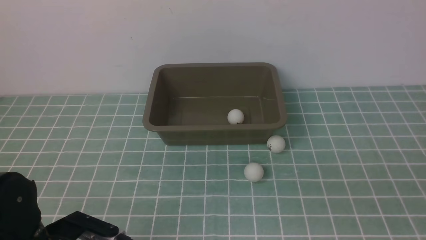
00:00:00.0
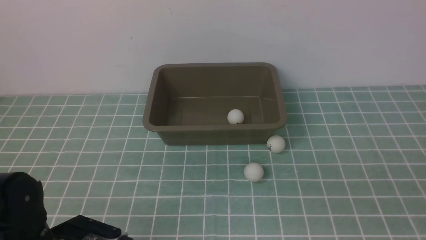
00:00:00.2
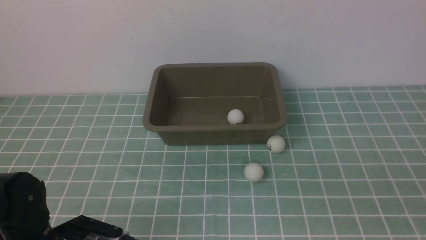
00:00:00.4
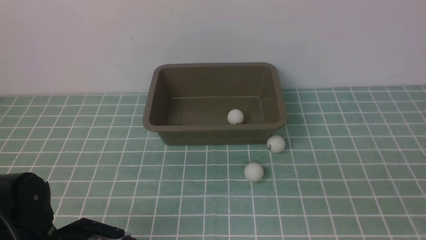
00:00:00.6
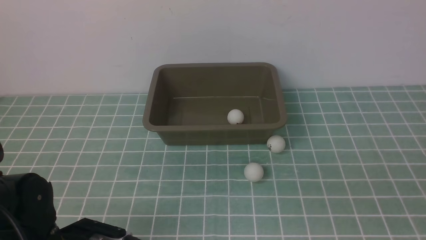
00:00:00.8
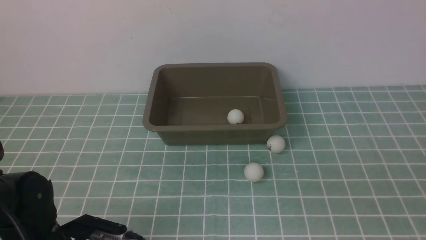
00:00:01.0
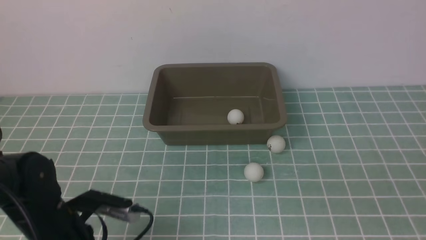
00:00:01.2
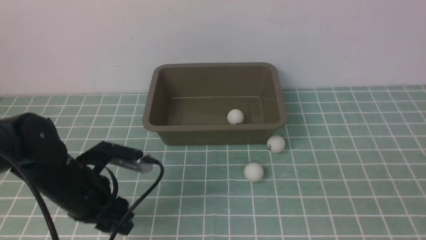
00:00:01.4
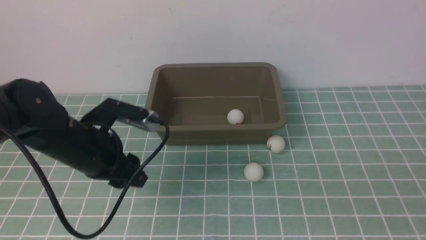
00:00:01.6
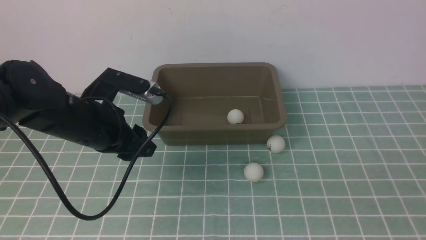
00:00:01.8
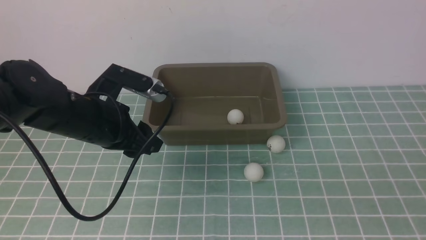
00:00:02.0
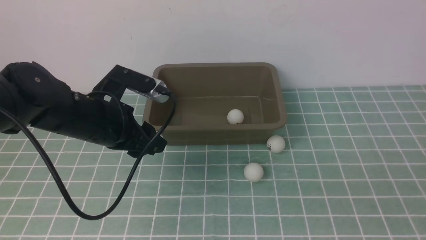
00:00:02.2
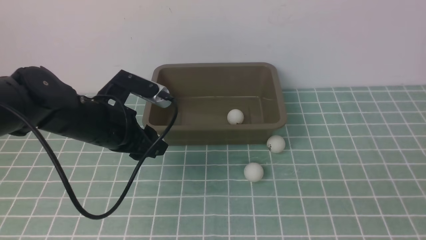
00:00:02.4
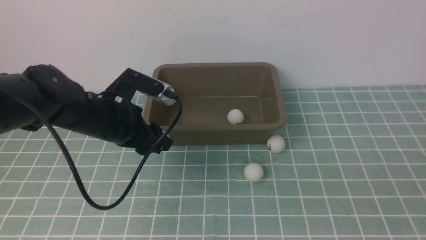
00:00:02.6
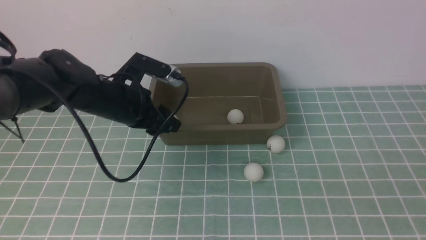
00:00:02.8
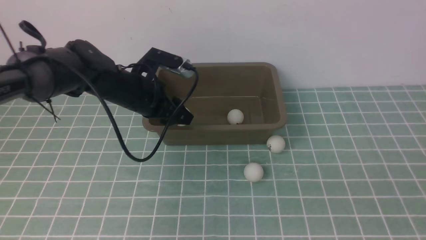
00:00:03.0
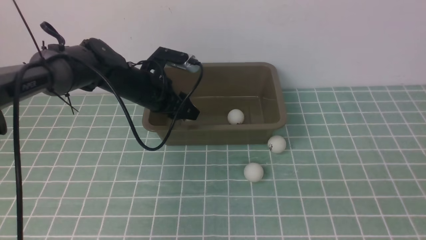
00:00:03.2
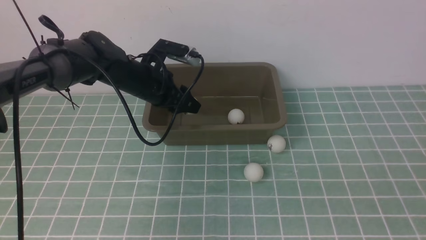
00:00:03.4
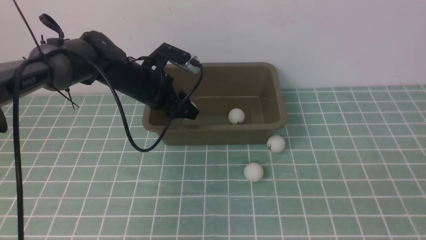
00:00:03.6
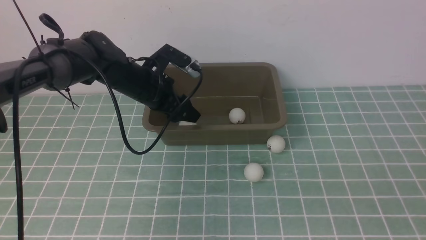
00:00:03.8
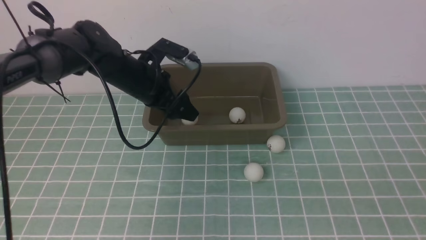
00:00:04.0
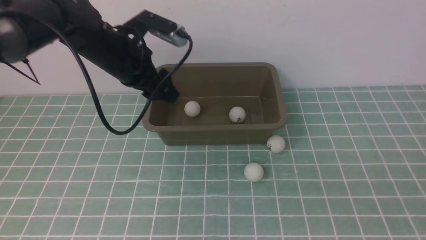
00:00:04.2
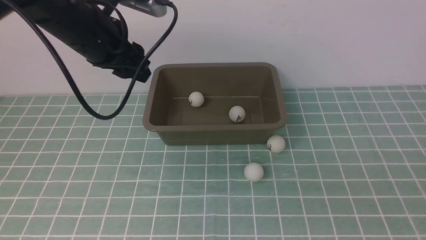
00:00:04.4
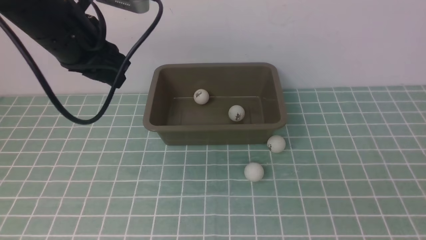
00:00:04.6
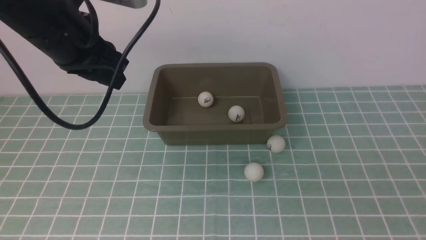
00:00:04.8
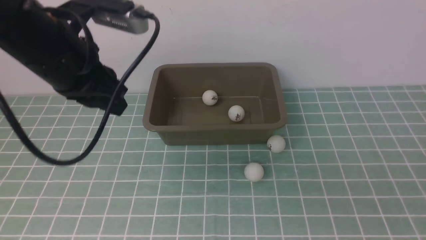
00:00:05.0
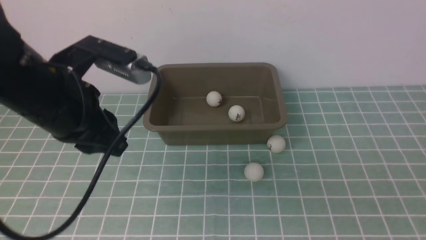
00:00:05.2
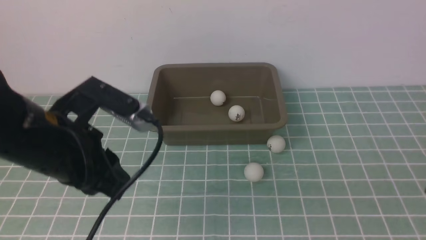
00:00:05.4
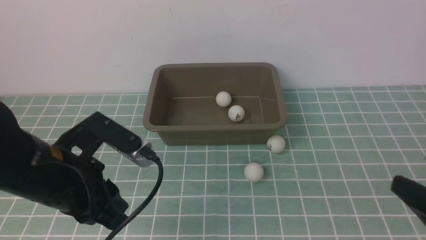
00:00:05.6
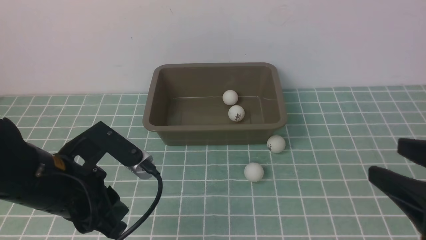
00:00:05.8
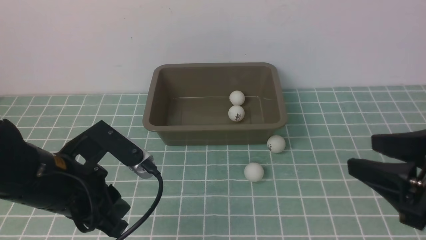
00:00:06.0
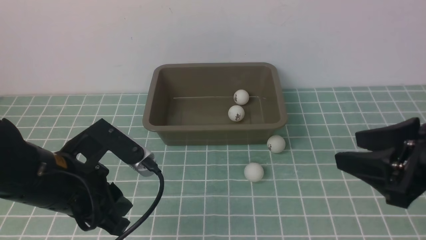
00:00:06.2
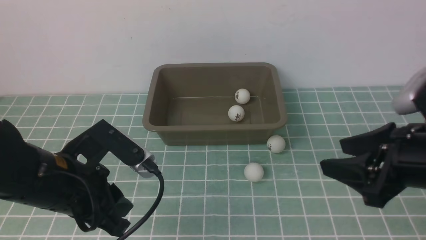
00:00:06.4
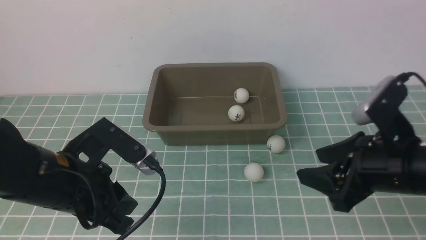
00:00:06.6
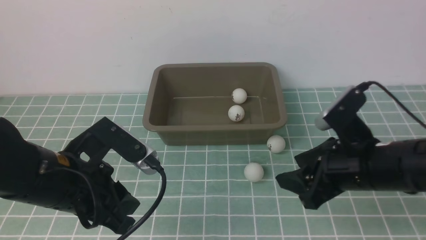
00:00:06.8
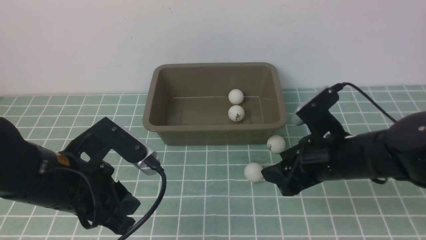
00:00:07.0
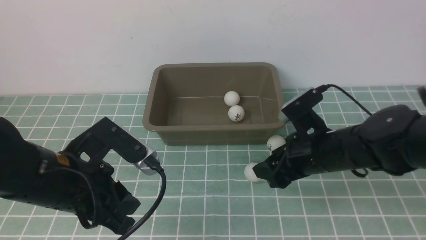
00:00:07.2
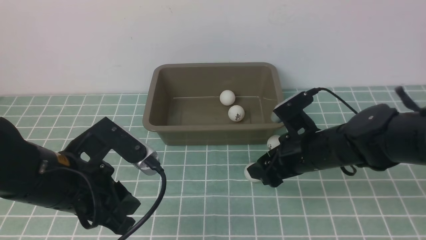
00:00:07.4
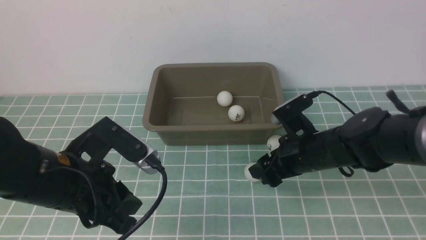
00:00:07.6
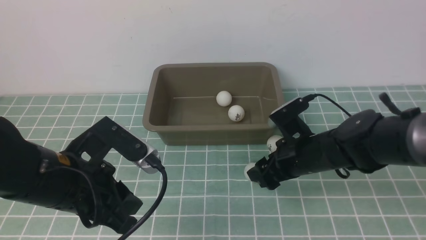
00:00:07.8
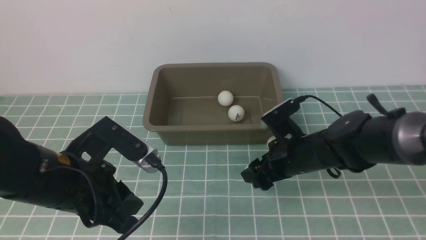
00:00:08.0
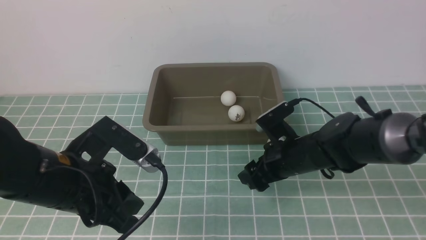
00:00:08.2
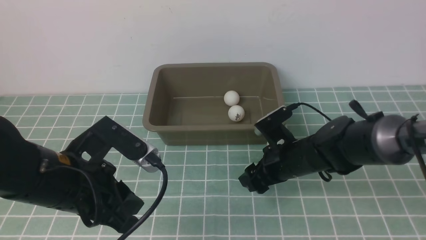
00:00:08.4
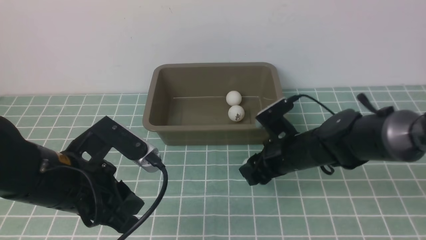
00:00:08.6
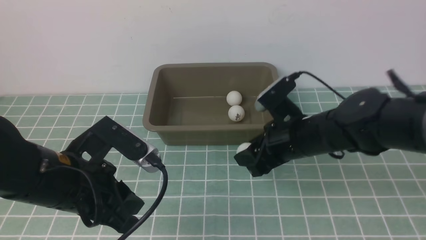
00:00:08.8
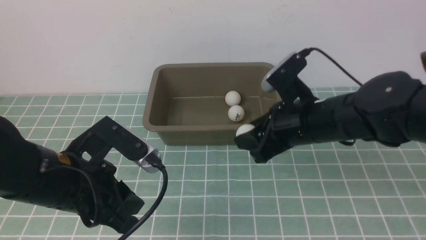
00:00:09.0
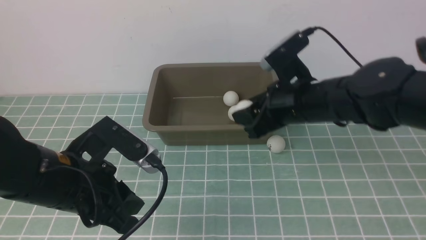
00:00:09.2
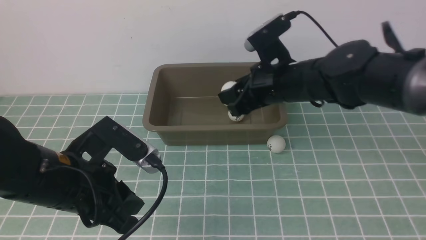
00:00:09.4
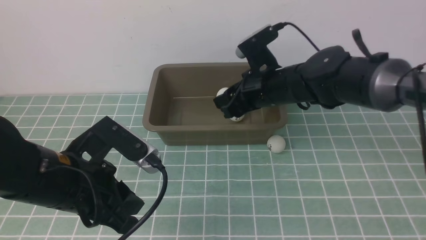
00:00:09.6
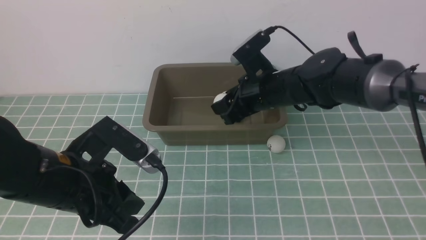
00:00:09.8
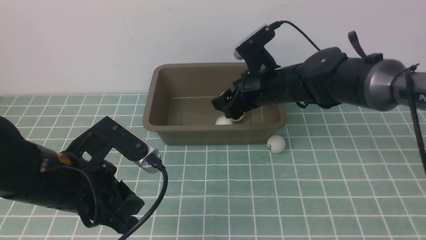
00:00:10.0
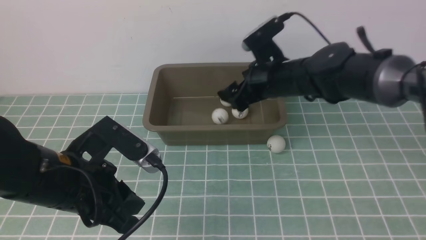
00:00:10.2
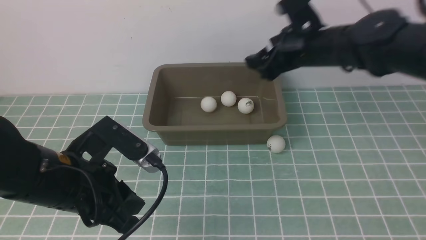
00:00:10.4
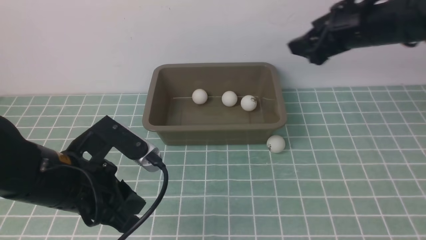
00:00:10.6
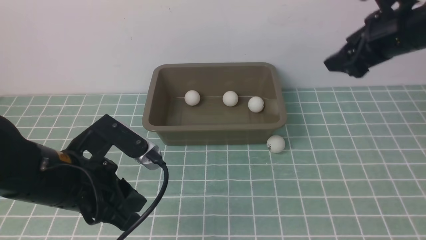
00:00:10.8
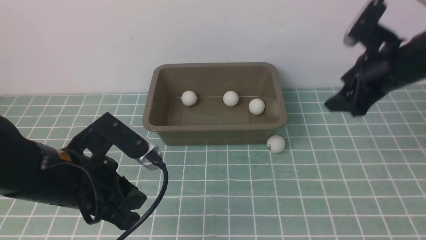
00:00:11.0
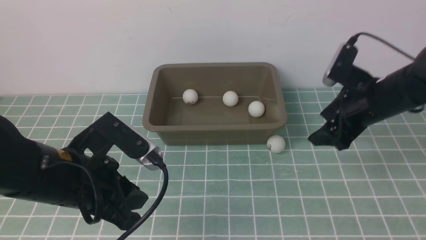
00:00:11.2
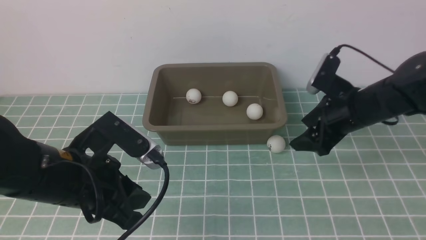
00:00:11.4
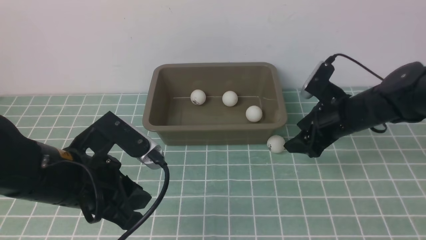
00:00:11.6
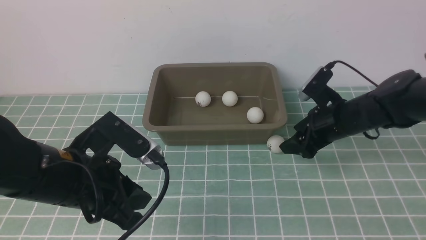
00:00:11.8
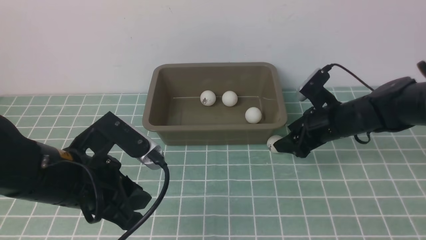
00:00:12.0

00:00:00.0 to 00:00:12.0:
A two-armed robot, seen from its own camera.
Step, 00:00:01.6 to 00:00:03.8: use the left arm to put the table tennis ball into the box.
Step, 00:00:04.0 to 00:00:08.8: use the right arm to clamp the table tennis ball closest to it.
Step, 00:00:09.0 to 00:00:10.2: use the right arm to put the table tennis ball into the box.
00:00:00.0 to 00:00:01.6: The left gripper shifts roughly 15 cm forward and upward.
00:00:01.6 to 00:00:03.0: The left gripper shifts roughly 15 cm forward.
00:00:03.0 to 00:00:04.4: The left gripper travels upward and backward by roughly 20 cm, and closes its fingers.
00:00:04.4 to 00:00:06.0: The right gripper moves forward, roughly 20 cm, while the left gripper moves downward and backward, roughly 15 cm.
00:00:06.0 to 00:00:07.6: The right gripper goes about 20 cm downward, forward and to the left.
00:00:07.6 to 00:00:09.0: The right gripper heads upward and forward, covering roughly 10 cm, and closes, then reopens.
00:00:09.0 to 00:00:10.4: The right gripper shifts about 15 cm to the right.
00:00:10.4 to 00:00:12.0: The right gripper goes some 10 cm downward.

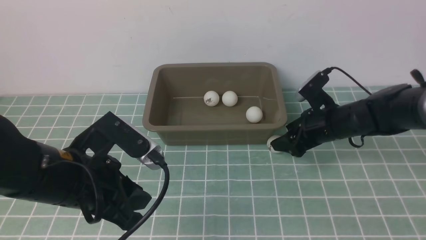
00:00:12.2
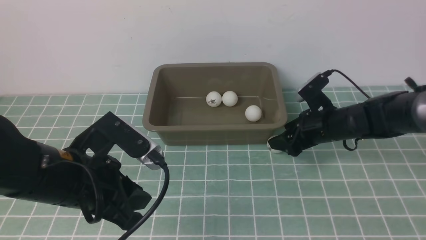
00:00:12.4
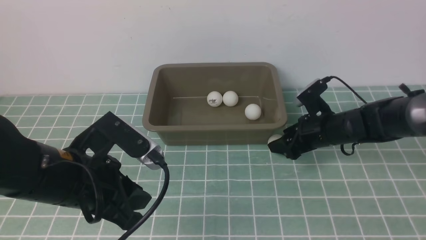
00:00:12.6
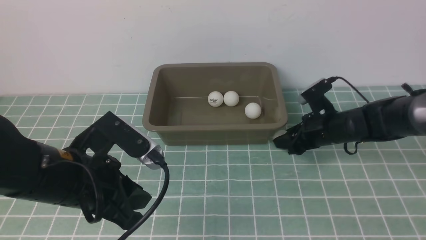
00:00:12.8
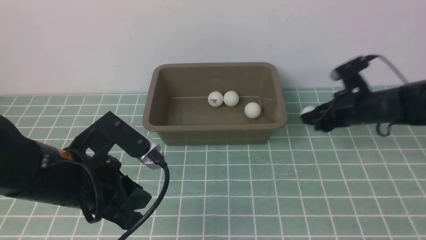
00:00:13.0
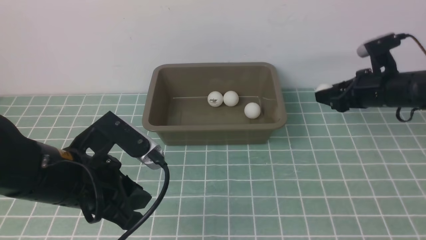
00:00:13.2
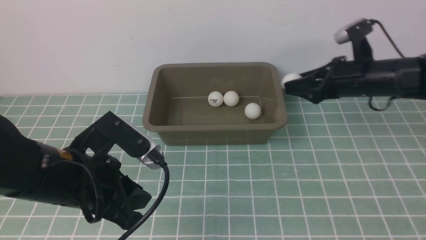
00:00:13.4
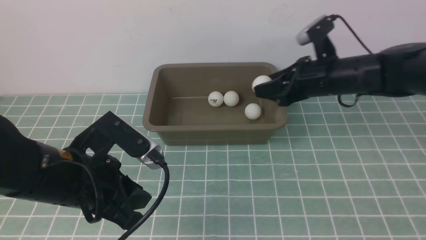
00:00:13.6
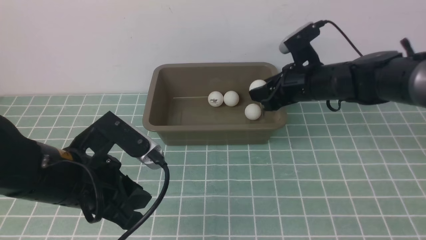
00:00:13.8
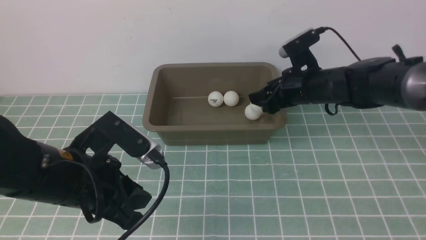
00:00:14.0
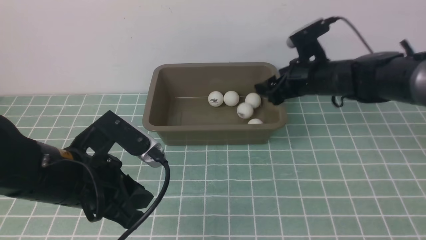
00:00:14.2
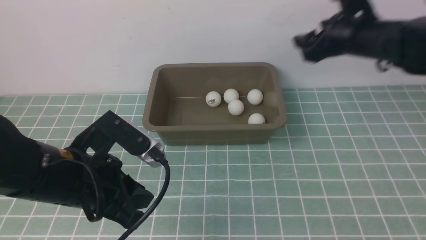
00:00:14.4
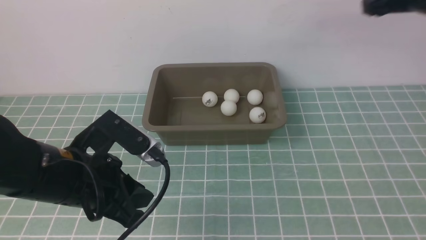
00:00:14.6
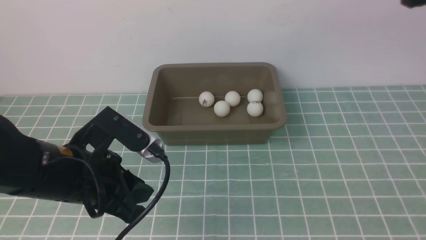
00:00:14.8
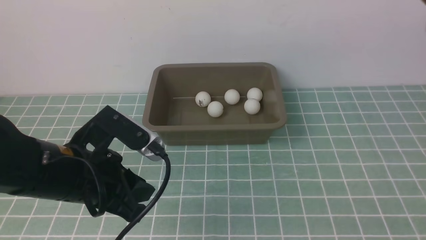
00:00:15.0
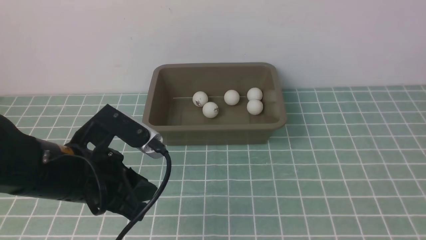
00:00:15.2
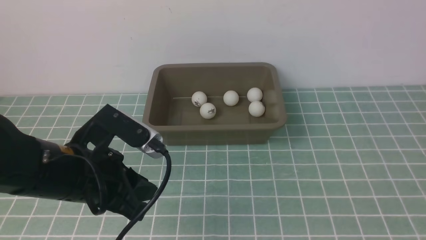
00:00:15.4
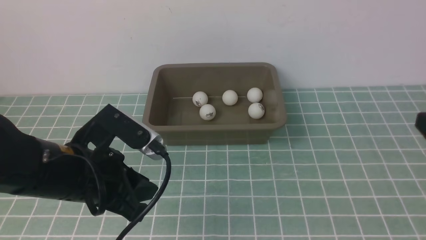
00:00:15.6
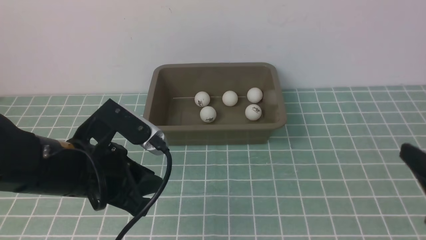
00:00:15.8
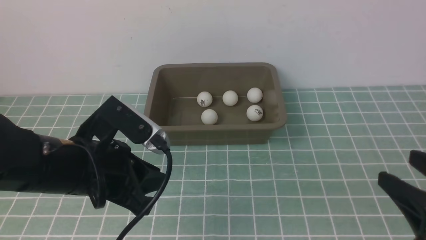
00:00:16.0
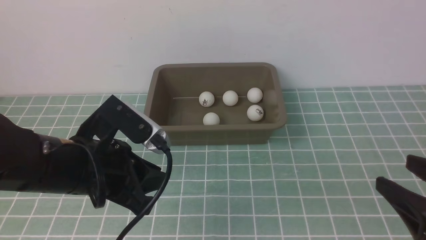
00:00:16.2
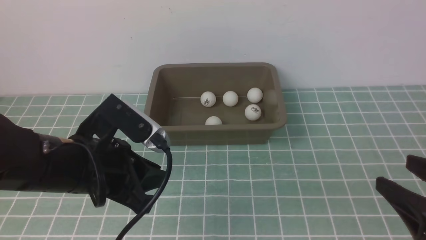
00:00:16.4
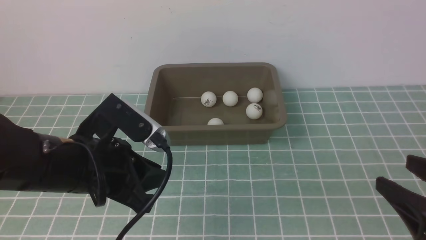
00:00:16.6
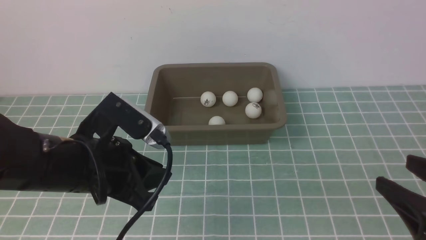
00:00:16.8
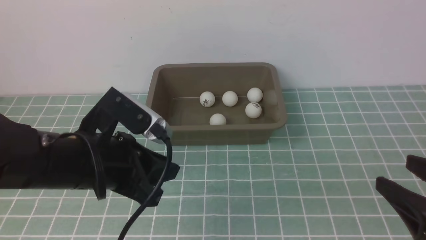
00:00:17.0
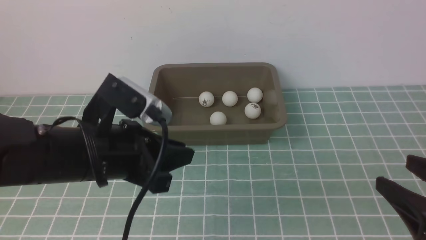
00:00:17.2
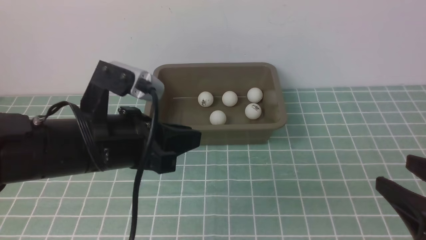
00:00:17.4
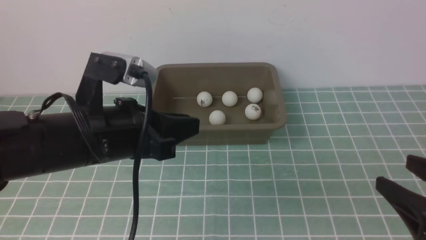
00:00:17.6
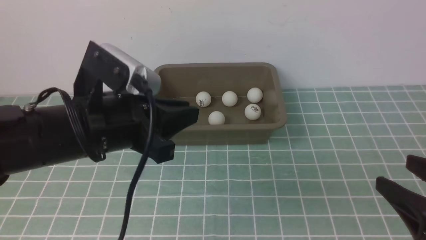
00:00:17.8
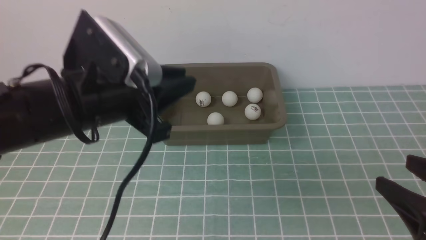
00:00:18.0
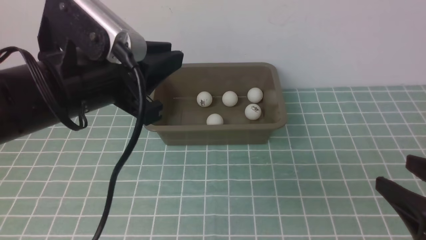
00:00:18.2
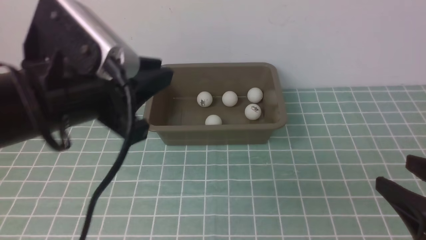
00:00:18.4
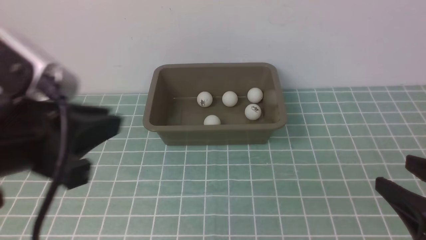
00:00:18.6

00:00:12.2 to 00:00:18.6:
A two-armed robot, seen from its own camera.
Step, 00:00:13.2 to 00:00:14.4: use the right arm to put the table tennis ball into the box.
00:00:12.2 to 00:00:13.8: The right gripper goes roughly 10 cm upward, and closes its fingers.
00:00:13.8 to 00:00:15.4: The right gripper heads backward, upward and to the right, covering about 30 cm, and opens, then closes once more.
00:00:15.4 to 00:00:17.0: The right gripper travels downward and backward by approximately 10 cm.
00:00:17.0 to 00:00:18.6: The left gripper goes about 10 cm to the left, backward and upward.
